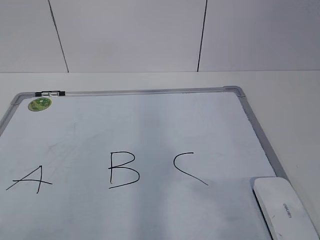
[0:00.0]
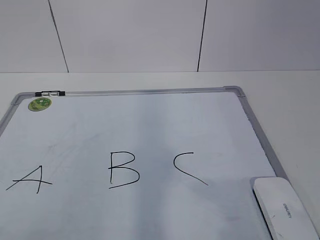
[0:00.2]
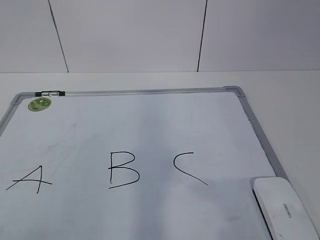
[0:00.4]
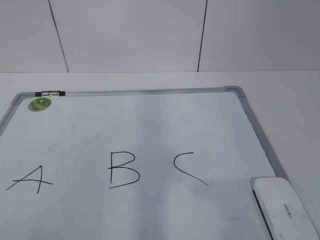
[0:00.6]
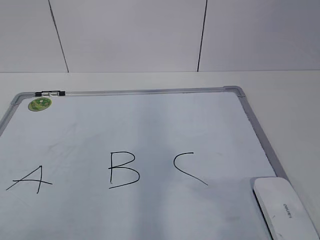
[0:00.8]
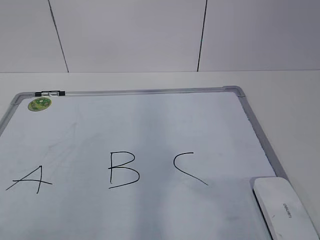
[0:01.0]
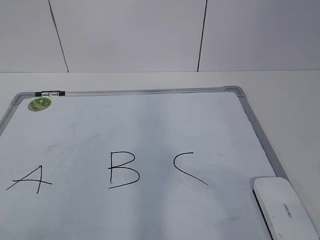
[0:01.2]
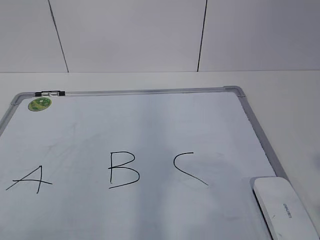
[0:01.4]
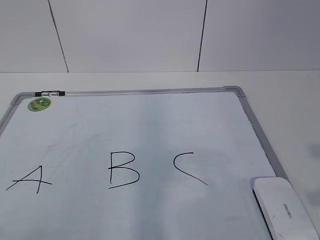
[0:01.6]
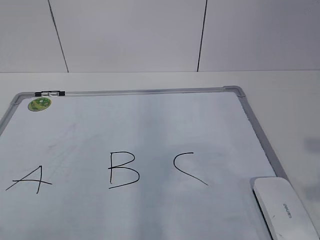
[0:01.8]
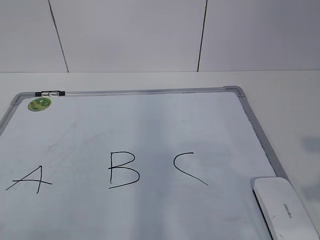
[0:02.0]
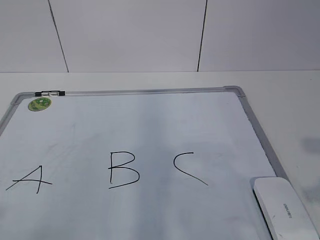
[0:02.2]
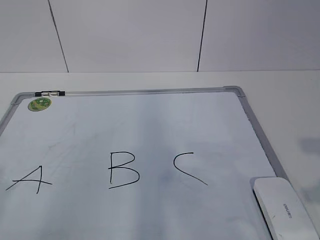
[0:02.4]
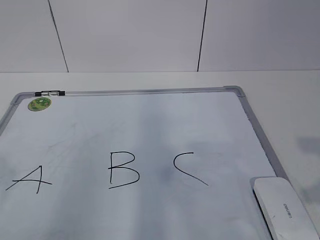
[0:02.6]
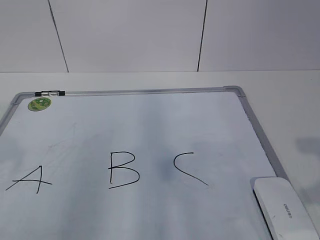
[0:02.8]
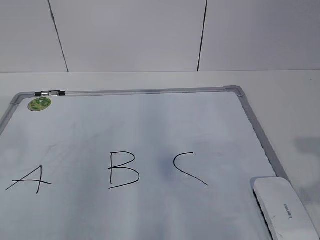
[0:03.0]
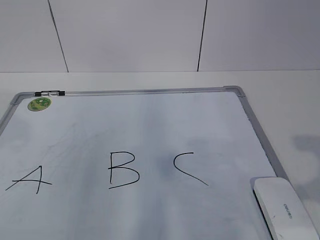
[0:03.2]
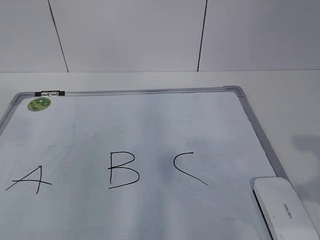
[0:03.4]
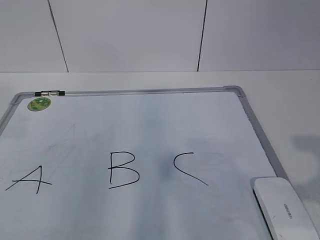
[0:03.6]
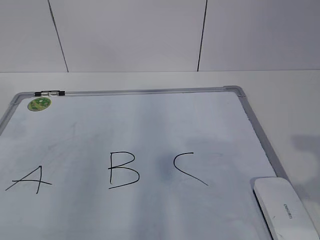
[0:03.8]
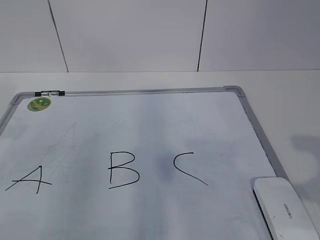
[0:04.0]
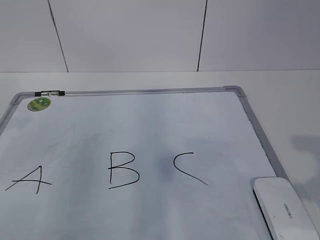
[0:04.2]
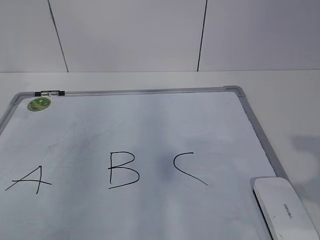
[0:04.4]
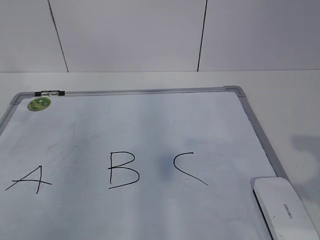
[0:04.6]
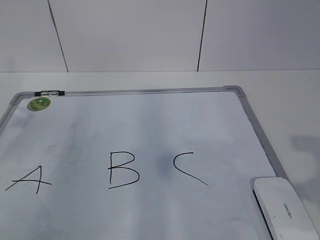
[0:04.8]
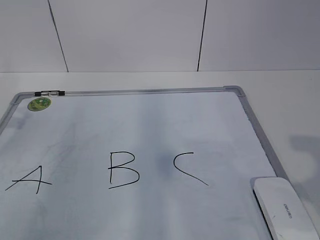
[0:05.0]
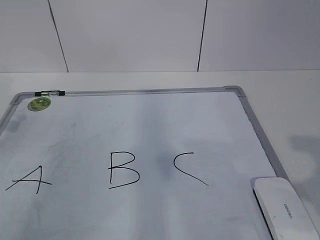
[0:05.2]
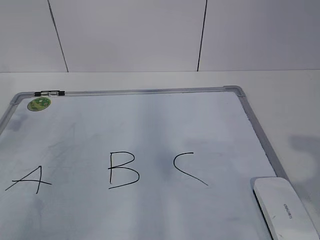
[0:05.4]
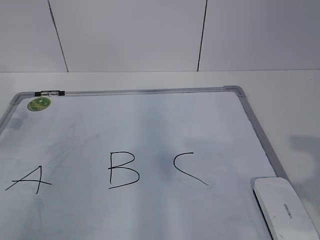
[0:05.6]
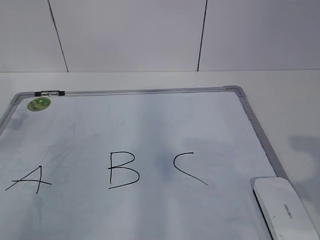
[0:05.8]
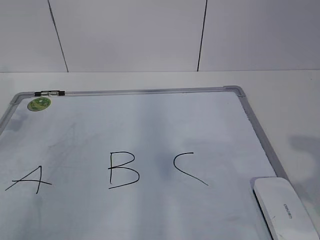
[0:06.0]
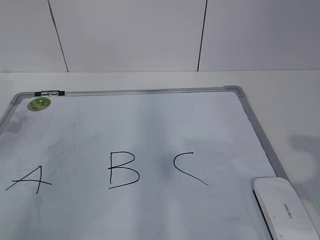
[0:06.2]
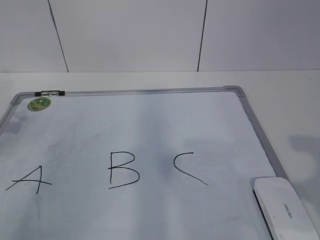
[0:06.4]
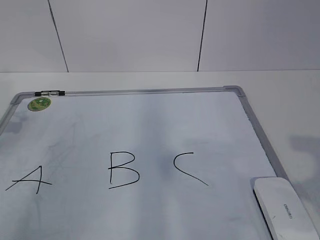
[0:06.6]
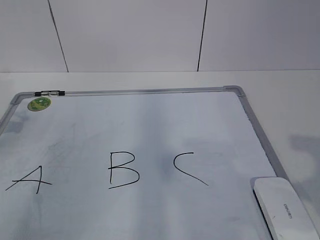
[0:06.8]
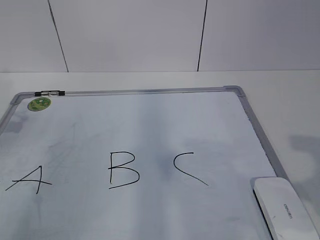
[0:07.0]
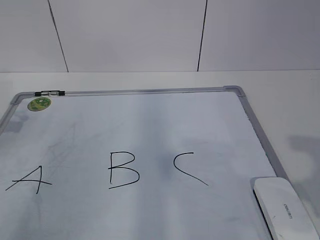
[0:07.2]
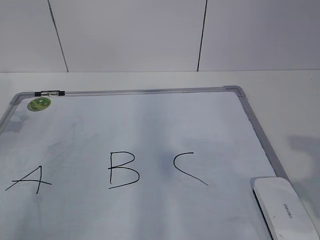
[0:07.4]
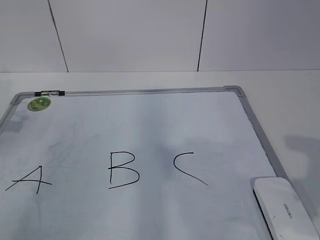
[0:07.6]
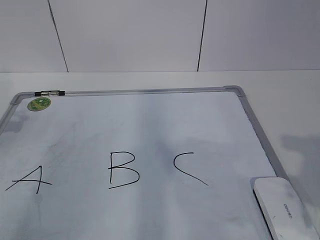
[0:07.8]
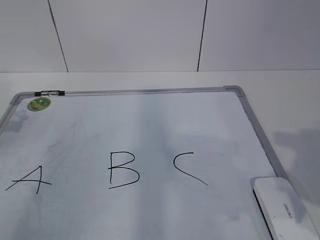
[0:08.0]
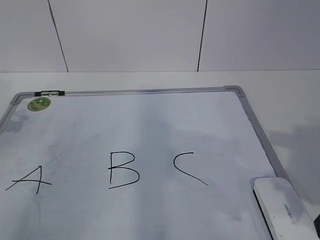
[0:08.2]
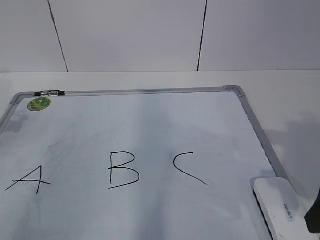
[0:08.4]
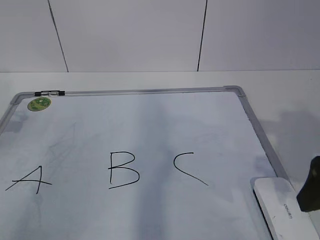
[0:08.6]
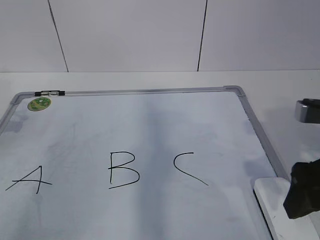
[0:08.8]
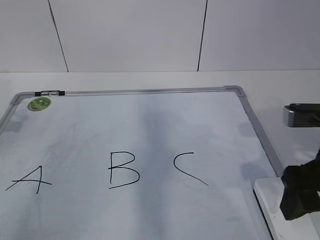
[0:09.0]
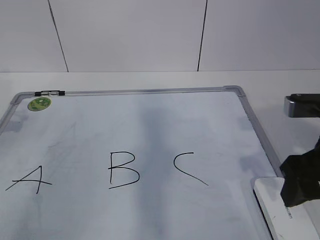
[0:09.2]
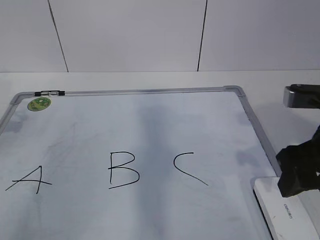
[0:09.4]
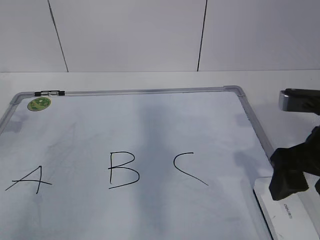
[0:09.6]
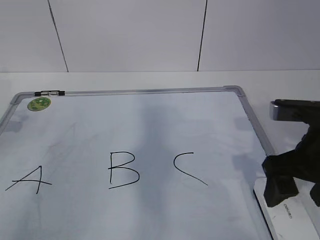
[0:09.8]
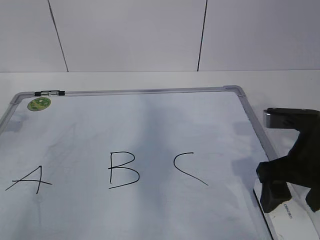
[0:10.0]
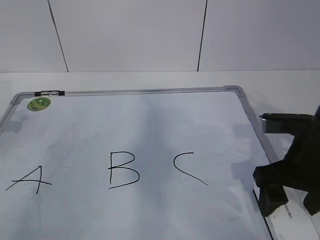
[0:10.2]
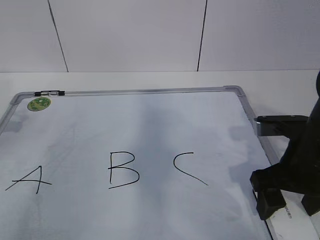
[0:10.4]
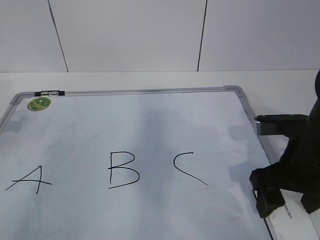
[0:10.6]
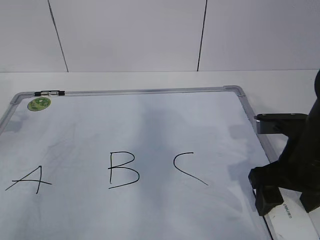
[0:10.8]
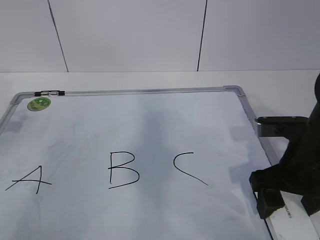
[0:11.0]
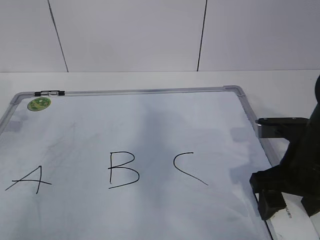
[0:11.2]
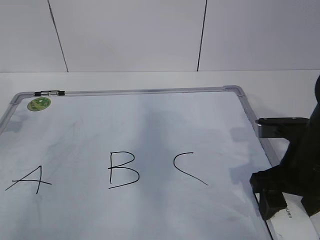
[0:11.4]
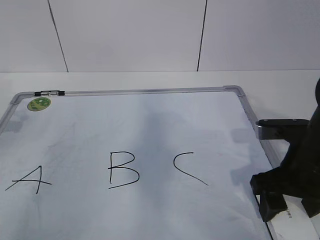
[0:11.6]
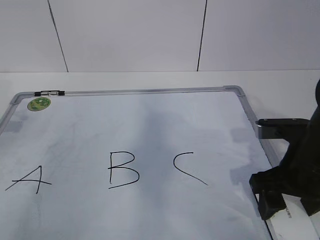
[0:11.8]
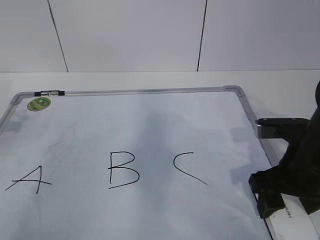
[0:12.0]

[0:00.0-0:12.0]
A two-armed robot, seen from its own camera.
Task of the whole recording: pick up the eraser on the blackboard and erase the letter "B".
Step, 0:05.2 to 0:11.4: Grab the eraser with your right hand.
0:07.6 to 0:09.0: The right gripper shifts approximately 10 cm forward and to the left, and opens up.
0:09.0 to 0:10.4: The right gripper shifts by about 5 cm.
0:10.4 to 0:12.0: The two grippers keep their place.

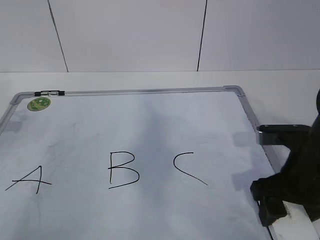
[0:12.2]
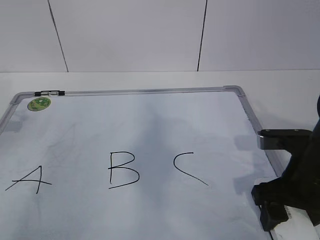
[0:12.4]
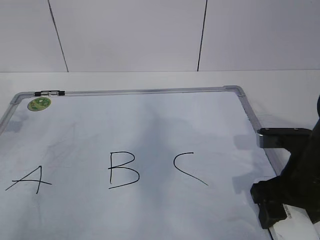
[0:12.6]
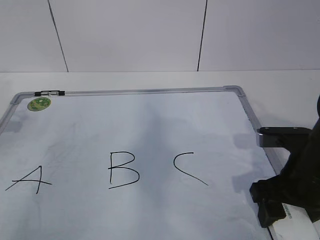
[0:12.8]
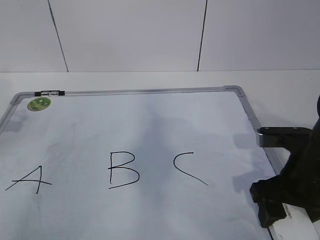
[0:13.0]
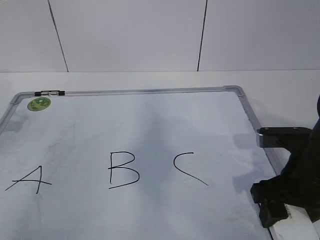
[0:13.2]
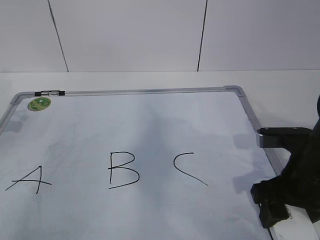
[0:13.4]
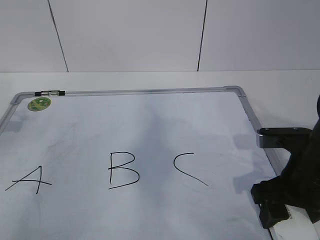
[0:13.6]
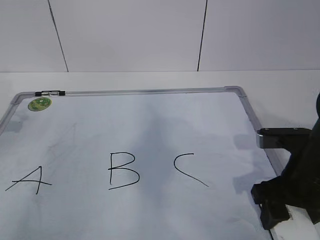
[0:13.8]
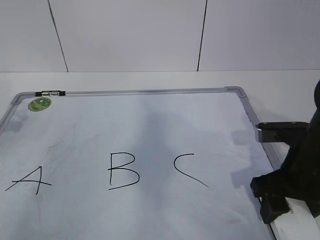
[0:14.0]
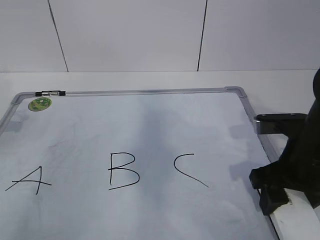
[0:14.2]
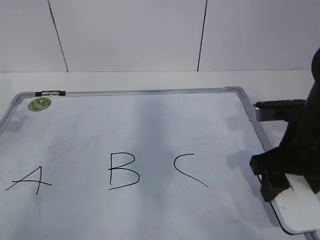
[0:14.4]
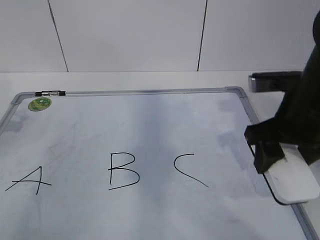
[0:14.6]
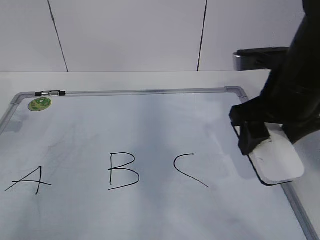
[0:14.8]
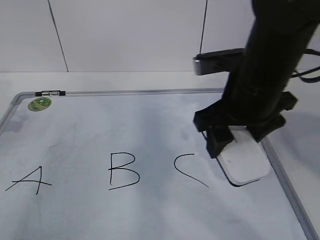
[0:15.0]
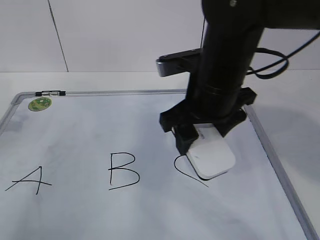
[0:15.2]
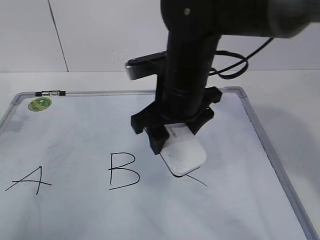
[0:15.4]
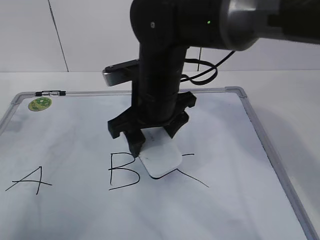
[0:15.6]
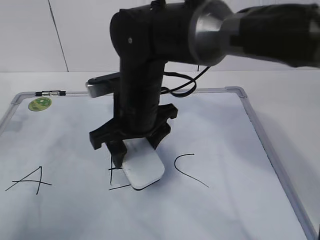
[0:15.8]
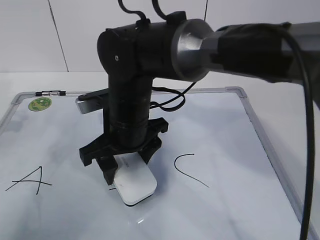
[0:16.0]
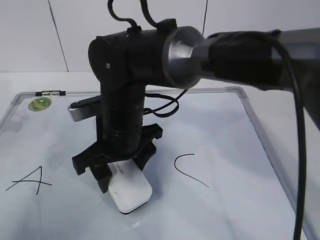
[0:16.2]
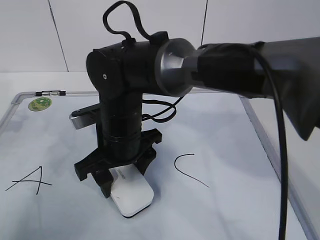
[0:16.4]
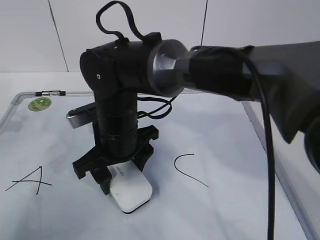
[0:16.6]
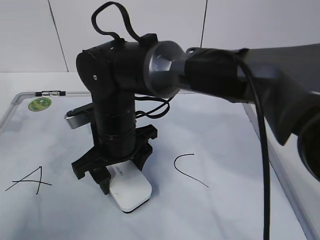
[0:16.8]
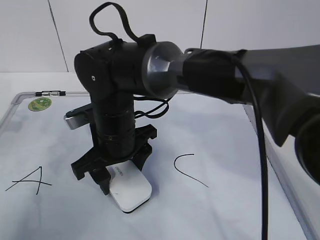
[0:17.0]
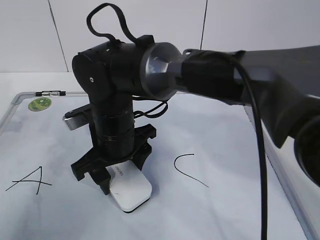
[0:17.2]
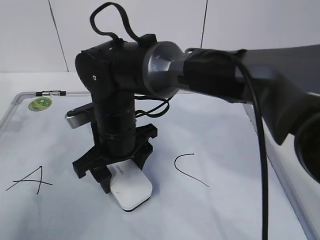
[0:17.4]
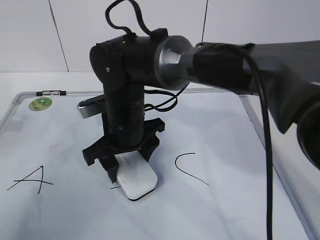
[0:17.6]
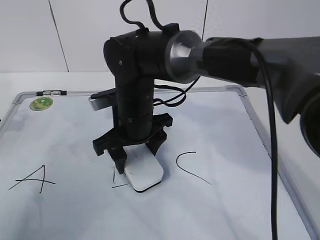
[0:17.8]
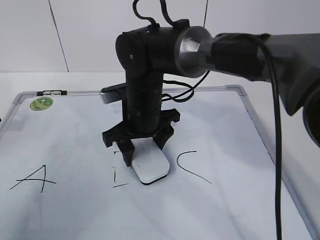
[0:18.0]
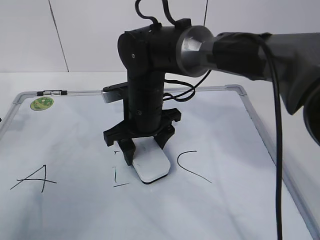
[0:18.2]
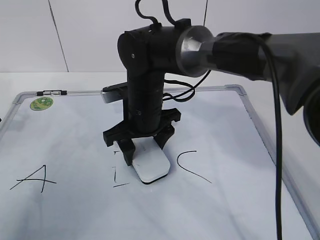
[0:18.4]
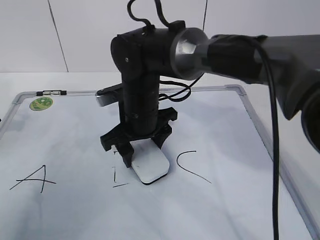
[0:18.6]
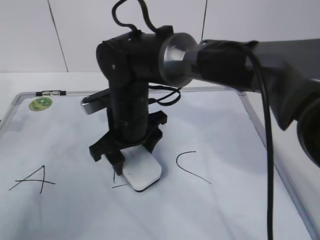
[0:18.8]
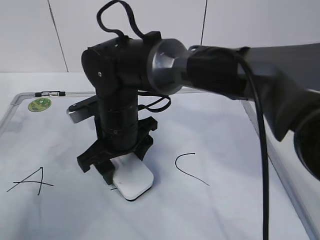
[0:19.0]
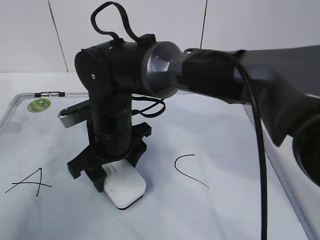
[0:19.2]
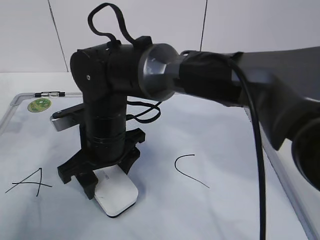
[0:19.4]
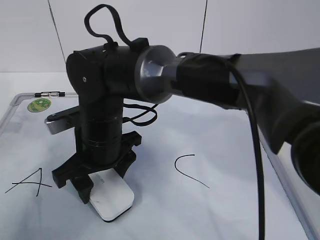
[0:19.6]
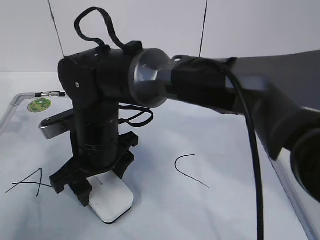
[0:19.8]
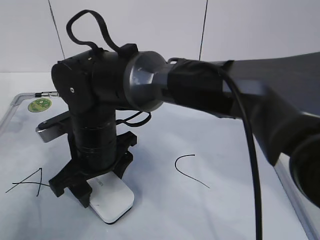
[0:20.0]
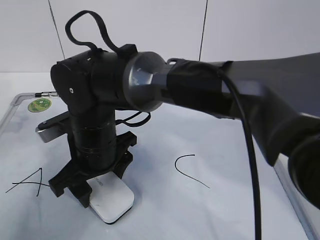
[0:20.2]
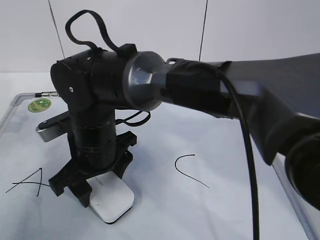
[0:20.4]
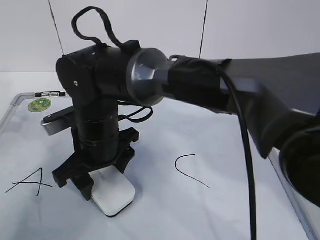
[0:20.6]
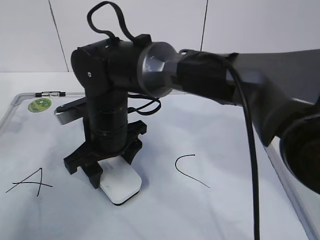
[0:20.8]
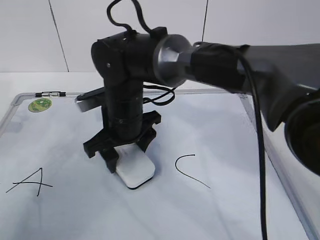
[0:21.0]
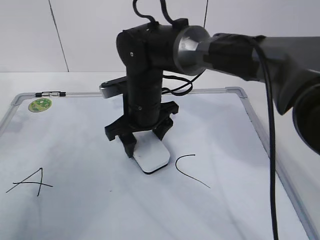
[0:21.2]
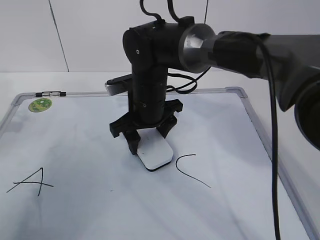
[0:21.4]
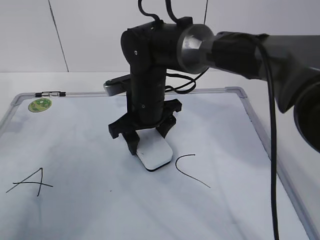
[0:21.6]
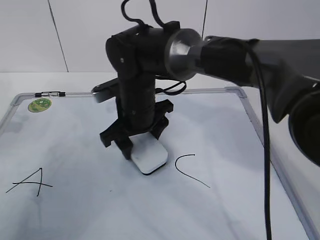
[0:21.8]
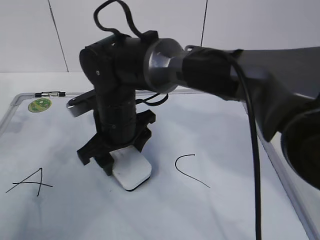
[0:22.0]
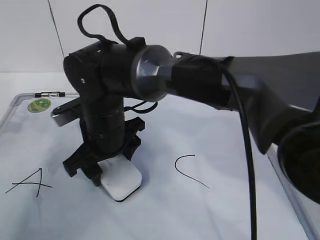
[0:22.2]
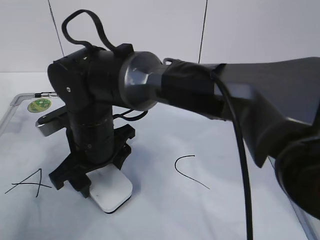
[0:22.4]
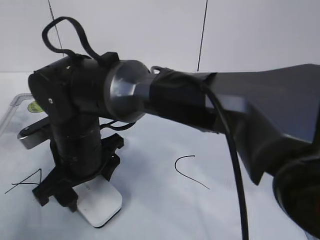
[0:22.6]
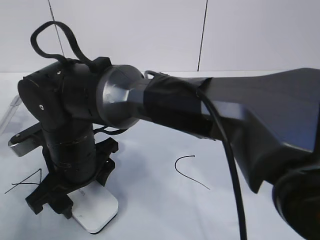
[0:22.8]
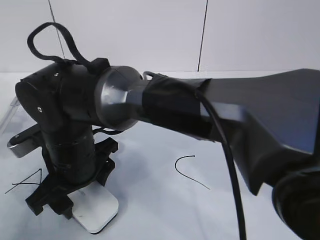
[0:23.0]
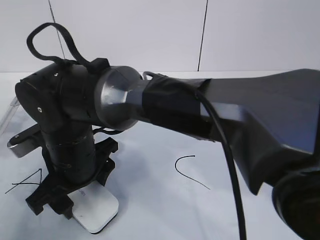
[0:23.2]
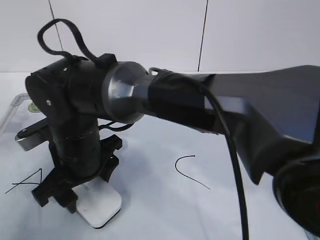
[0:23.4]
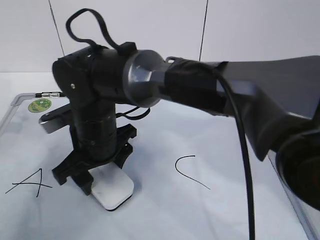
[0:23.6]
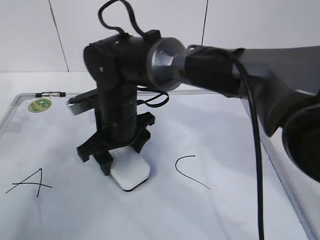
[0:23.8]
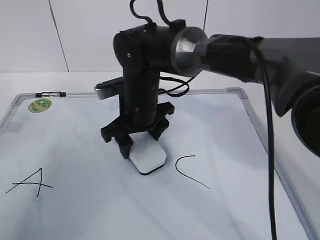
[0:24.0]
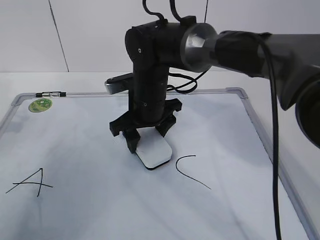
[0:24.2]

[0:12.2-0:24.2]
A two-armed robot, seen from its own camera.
Task of the whole recording: pick up the eraser on the blackboard and erase the letter "B".
Step, 0:12.2 to 0:20.4: Erase the letter B with your right hand.
0:12.2 to 0:13.8: Both grippers stay about where they are.
0:13.8 to 0:15.2: The right gripper shifts roughly 15 cm to the left, upward and forward.
0:15.2 to 0:16.6: The right gripper goes some 15 cm to the left and downward.
0:16.6 to 0:18.2: The right gripper travels forward by some 5 cm.
0:18.2 to 0:19.8: The right gripper shifts about 10 cm to the left and backward.
0:19.8 to 0:21.2: The right gripper shifts roughly 10 cm forward and to the right.
0:21.2 to 0:22.6: The right gripper heads backward and to the left, covering some 15 cm.
0:22.6 to 0:24.2: The right gripper travels forward and to the right by some 15 cm.
